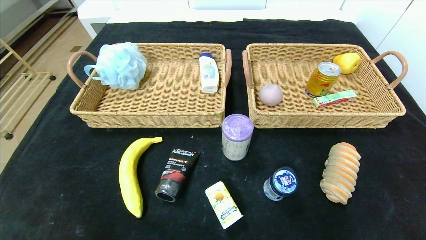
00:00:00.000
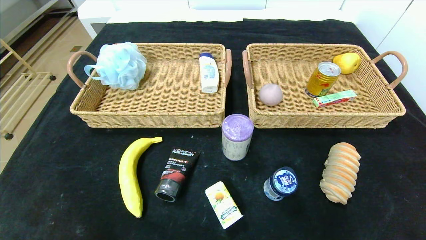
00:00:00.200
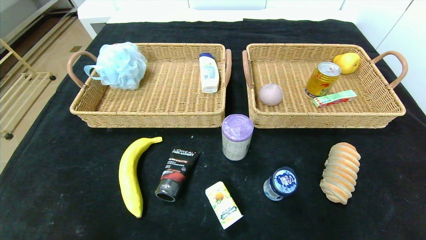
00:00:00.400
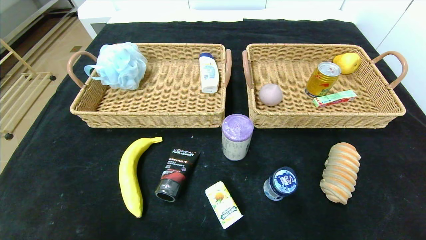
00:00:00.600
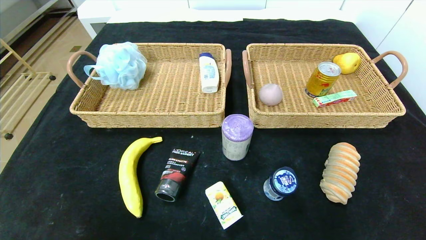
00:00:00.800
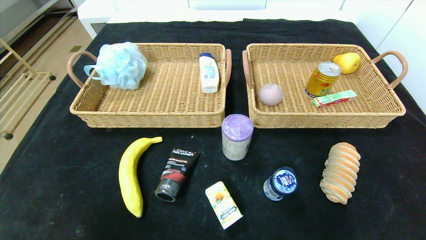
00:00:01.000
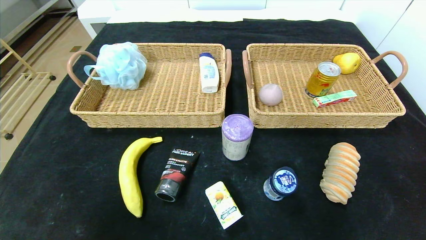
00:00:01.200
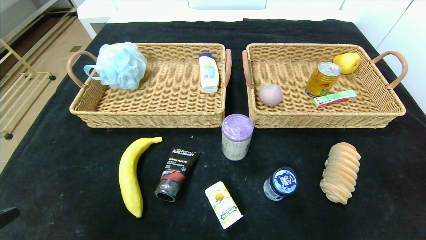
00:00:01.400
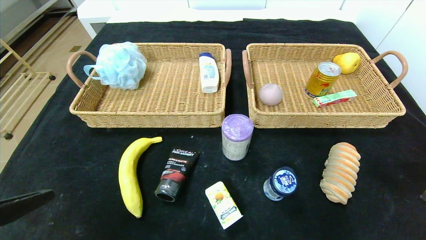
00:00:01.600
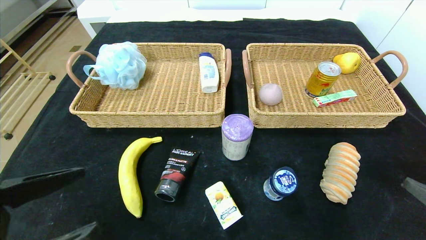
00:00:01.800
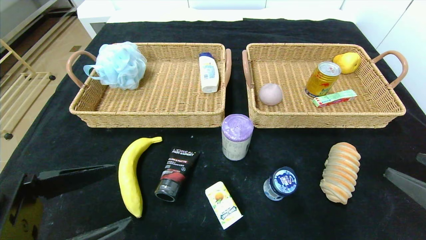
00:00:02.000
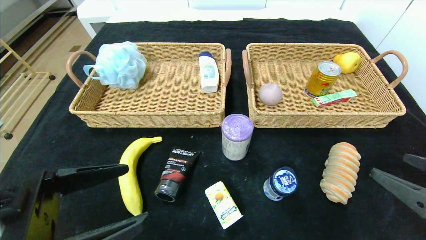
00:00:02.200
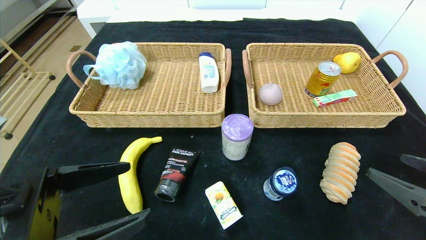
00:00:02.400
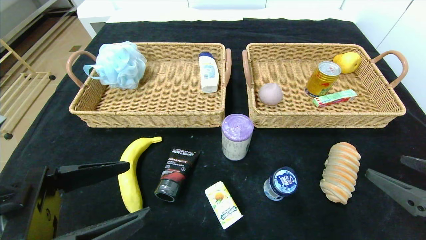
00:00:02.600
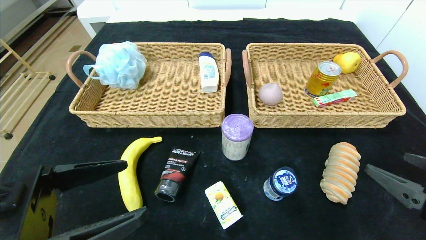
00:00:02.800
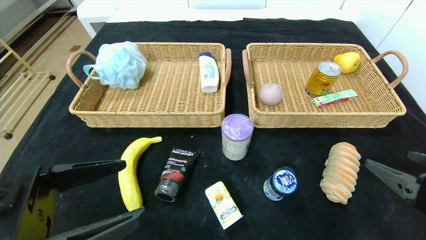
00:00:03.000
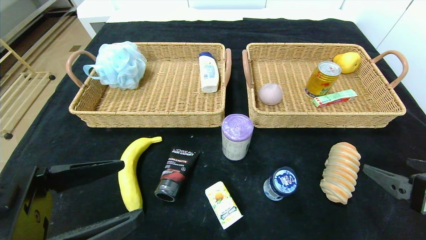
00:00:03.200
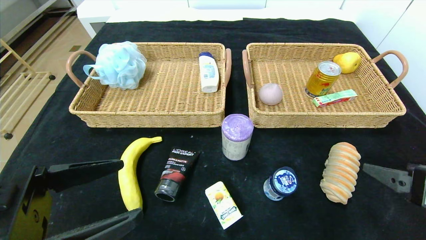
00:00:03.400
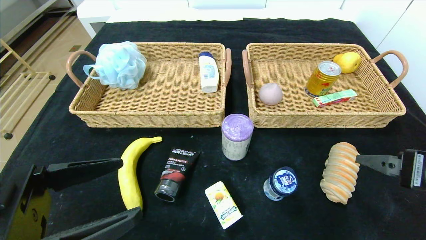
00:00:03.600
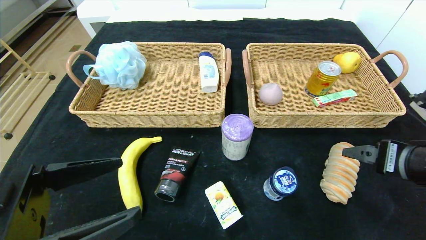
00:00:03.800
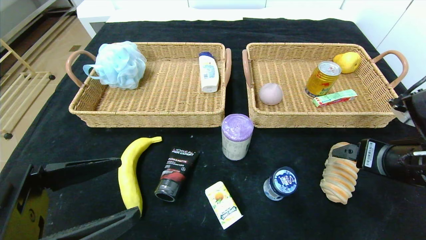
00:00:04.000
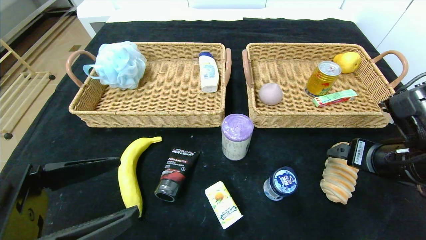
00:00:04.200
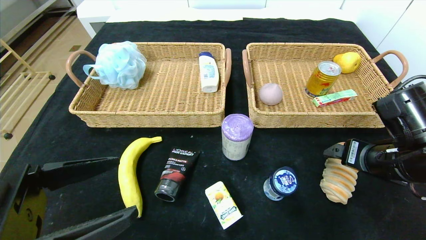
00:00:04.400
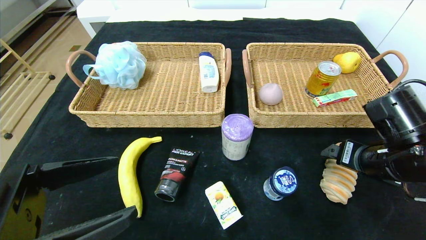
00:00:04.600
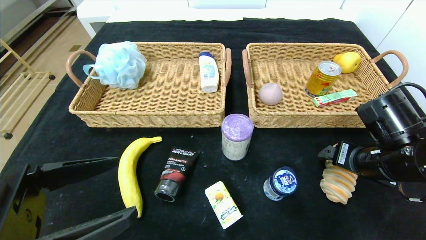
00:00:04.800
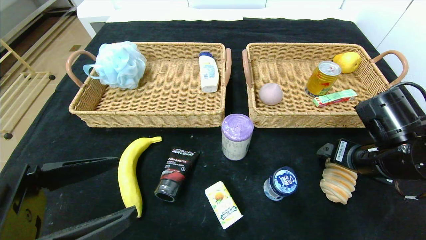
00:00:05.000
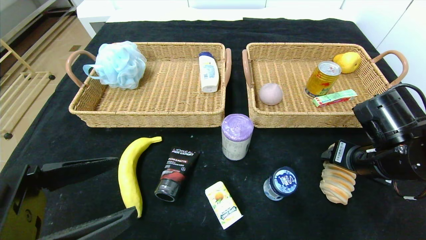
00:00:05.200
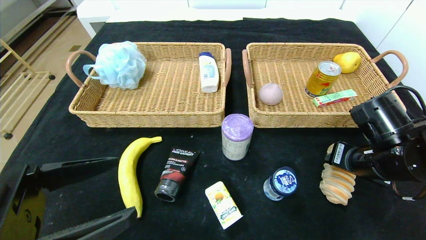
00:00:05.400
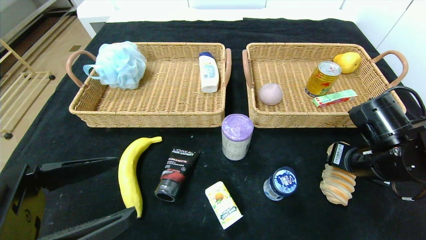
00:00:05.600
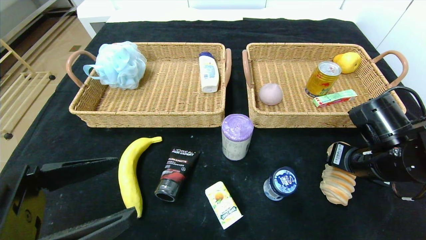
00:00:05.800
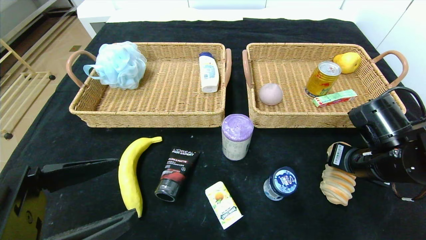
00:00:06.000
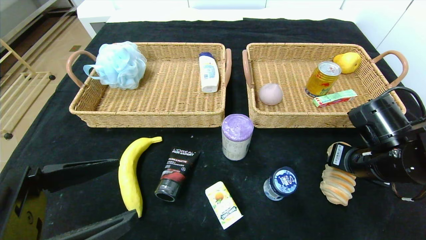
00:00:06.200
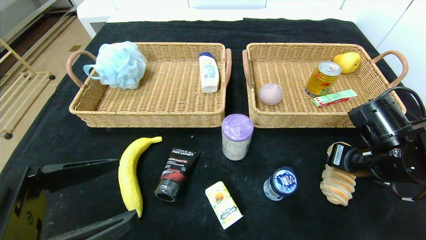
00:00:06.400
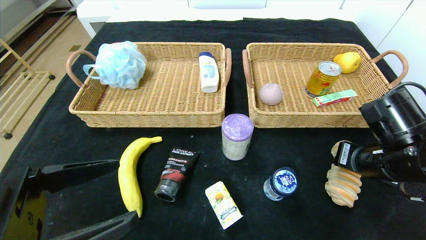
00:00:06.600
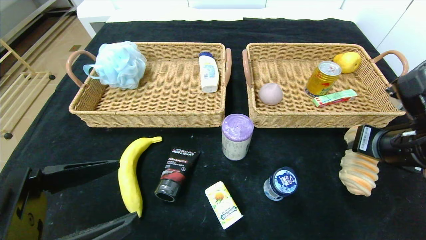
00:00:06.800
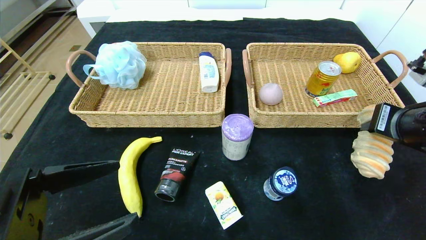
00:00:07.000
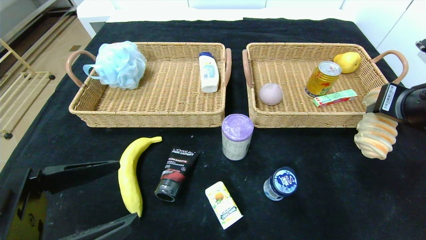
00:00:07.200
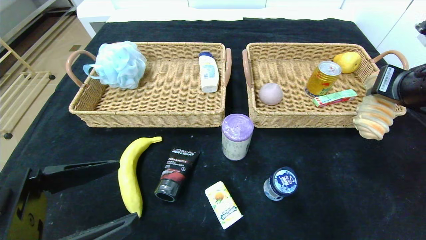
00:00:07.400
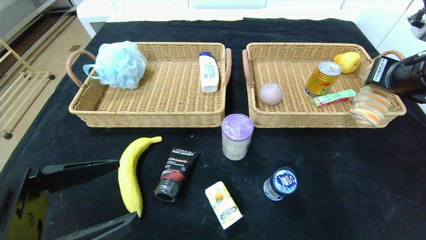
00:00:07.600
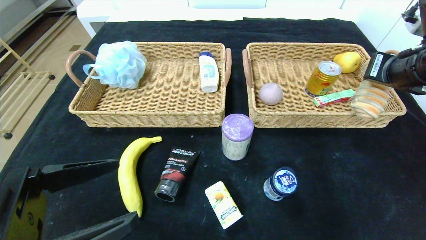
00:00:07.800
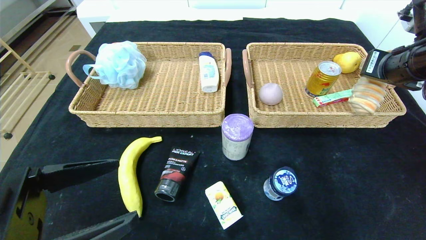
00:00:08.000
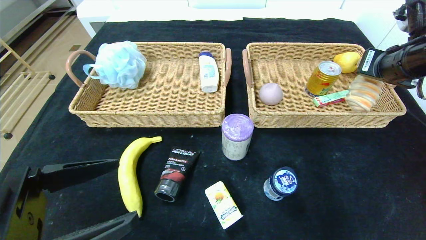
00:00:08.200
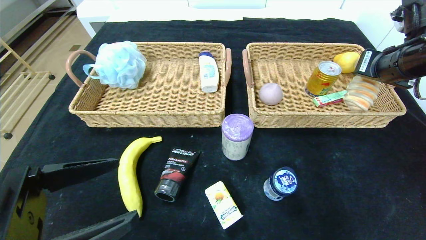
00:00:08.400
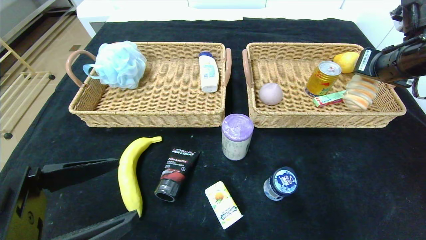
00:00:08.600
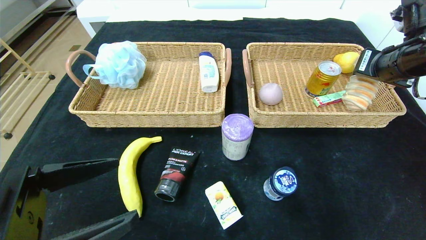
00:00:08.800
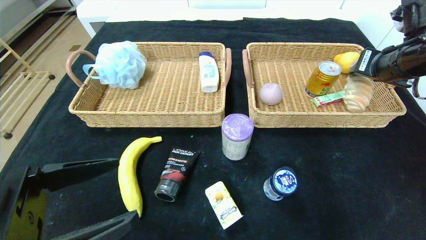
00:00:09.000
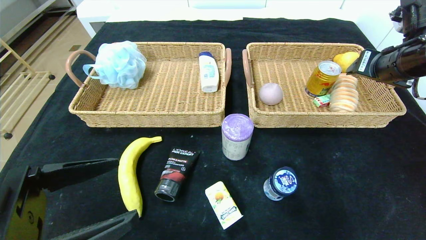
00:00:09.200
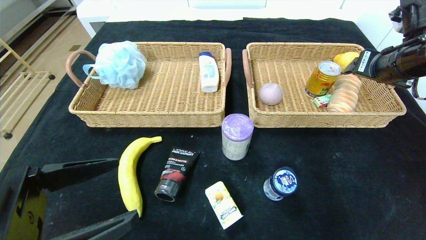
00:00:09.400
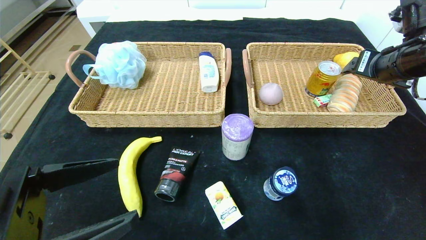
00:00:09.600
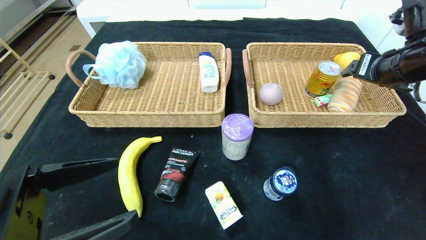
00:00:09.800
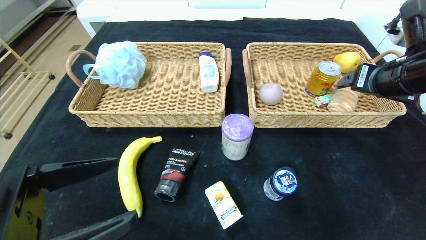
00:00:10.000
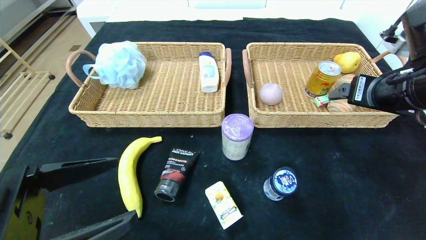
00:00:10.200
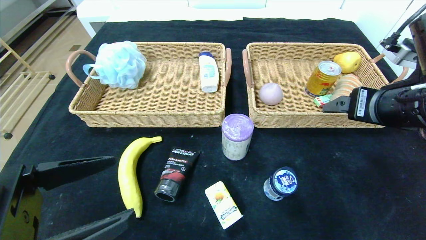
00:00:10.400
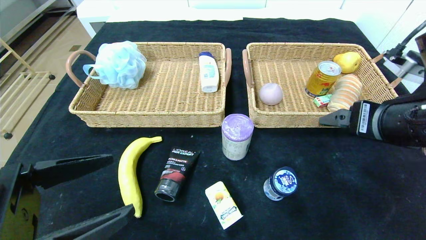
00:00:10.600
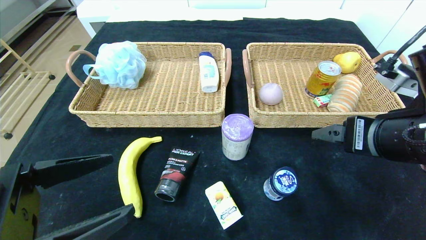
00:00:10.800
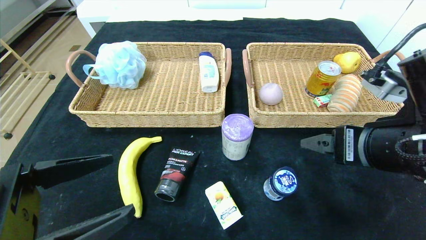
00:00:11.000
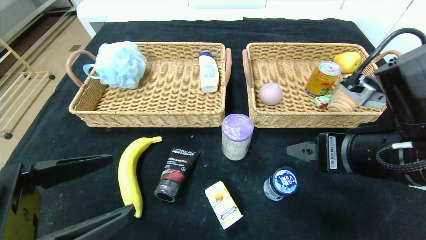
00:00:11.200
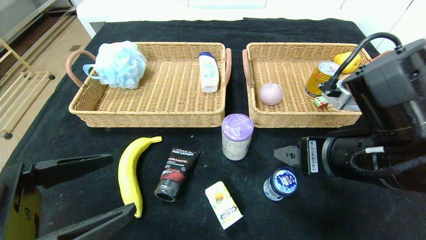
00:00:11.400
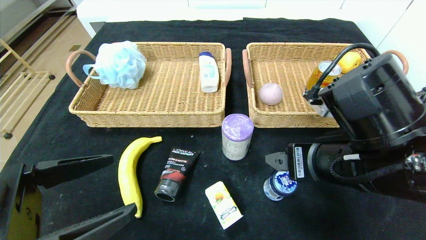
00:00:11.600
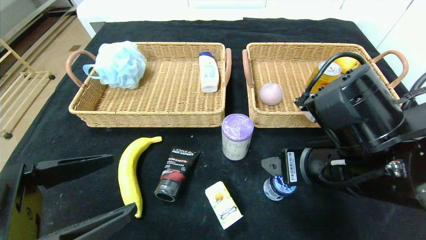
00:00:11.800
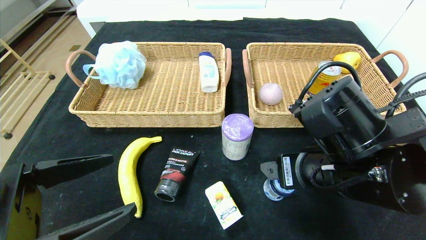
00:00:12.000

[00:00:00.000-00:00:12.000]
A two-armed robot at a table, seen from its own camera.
Step, 00:00:00.000 to 00:00:09.000: Grasp the long bread and put it in the right basket.
00:00:00.000 to 00:00:01.600: The left gripper shifts approximately 15 cm upward and forward.
00:00:01.600 to 00:00:03.000: The grippers both shift forward by about 5 cm.
00:00:03.000 to 00:00:04.400: The right gripper travels forward by about 10 cm.
00:00:04.400 to 00:00:06.000: The right gripper closes.
00:00:06.000 to 00:00:07.600: The right gripper shifts approximately 15 cm upward.
00:00:07.600 to 00:00:09.000: The right gripper travels forward by some 5 cm, and opens.
00:00:09.000 to 00:00:10.400: The right gripper shifts about 10 cm backward and to the left, and opens.
00:00:10.400 to 00:00:12.000: The right gripper shifts roughly 10 cm to the left and downward.

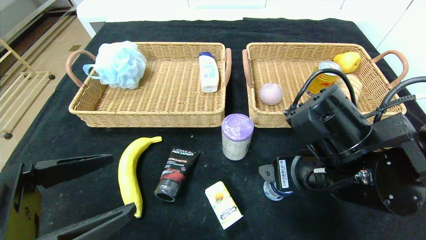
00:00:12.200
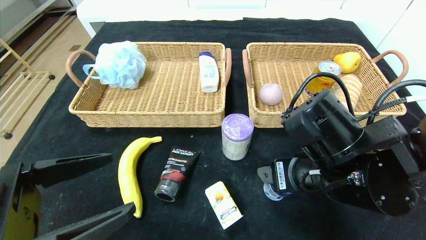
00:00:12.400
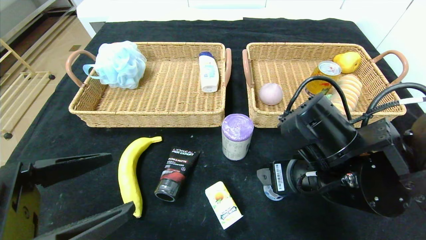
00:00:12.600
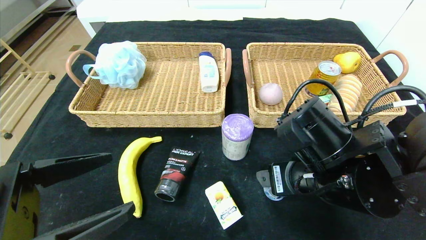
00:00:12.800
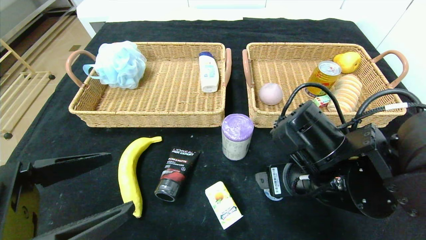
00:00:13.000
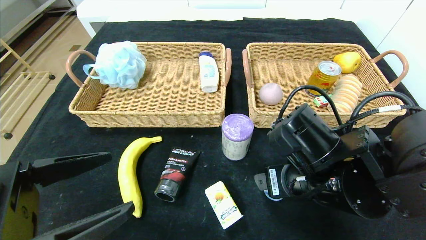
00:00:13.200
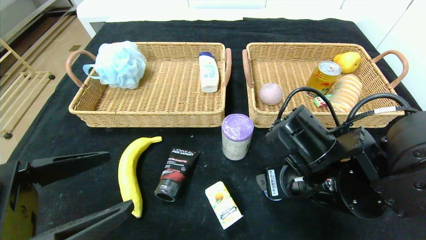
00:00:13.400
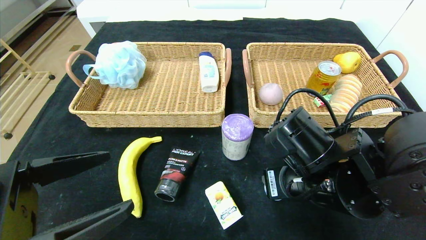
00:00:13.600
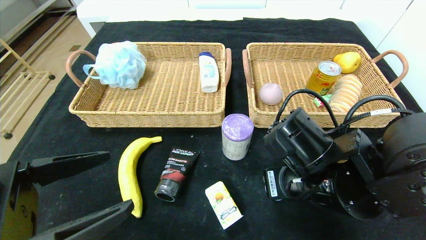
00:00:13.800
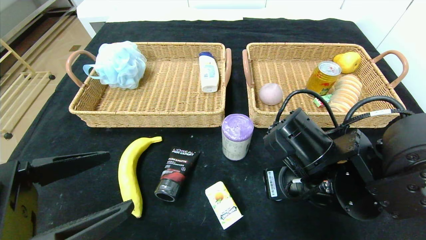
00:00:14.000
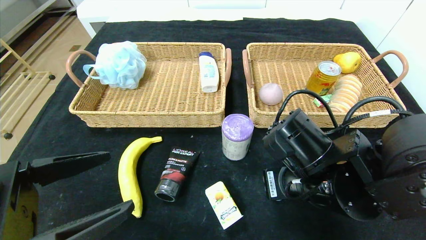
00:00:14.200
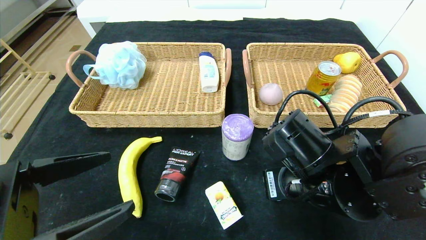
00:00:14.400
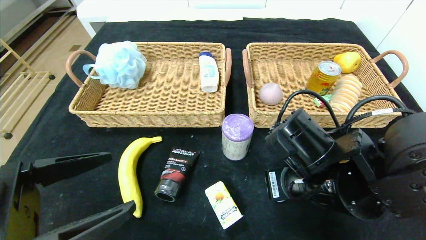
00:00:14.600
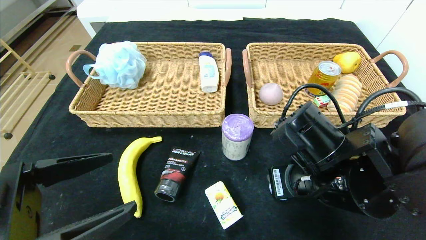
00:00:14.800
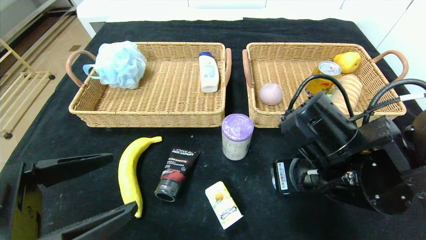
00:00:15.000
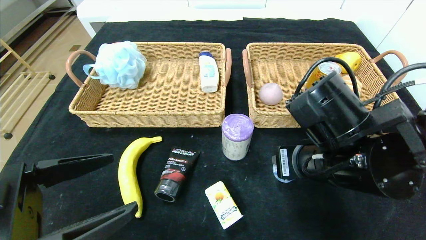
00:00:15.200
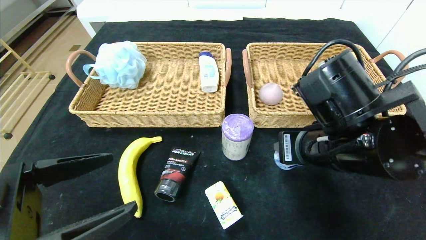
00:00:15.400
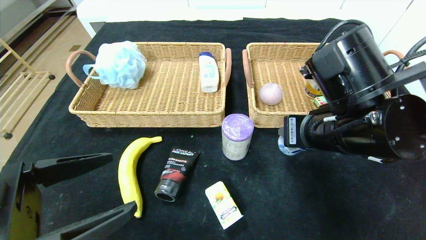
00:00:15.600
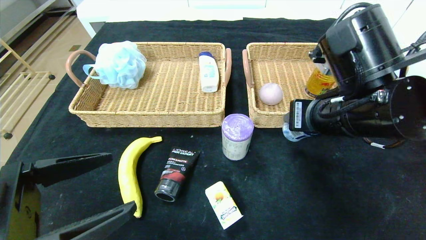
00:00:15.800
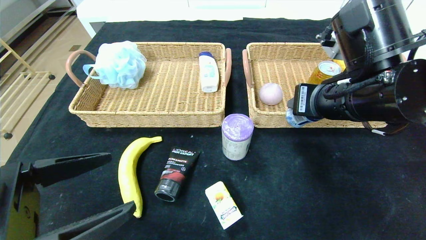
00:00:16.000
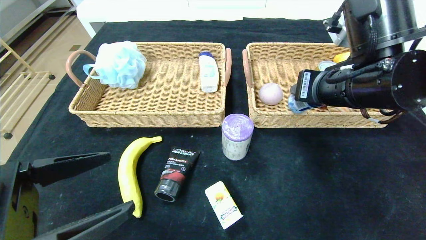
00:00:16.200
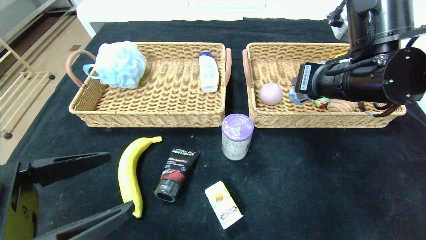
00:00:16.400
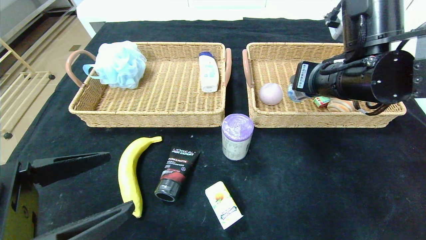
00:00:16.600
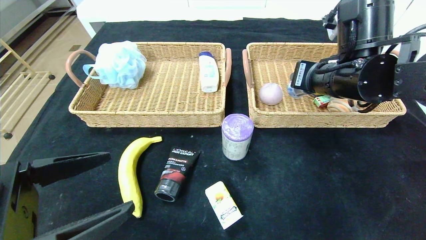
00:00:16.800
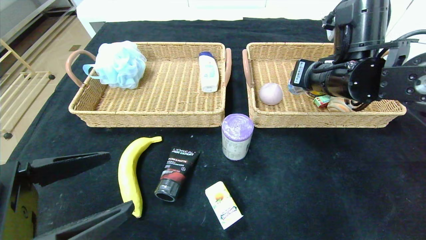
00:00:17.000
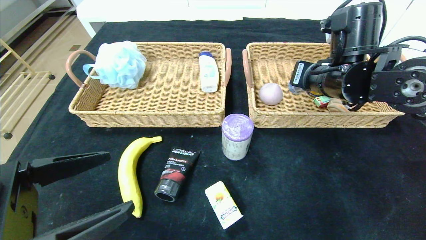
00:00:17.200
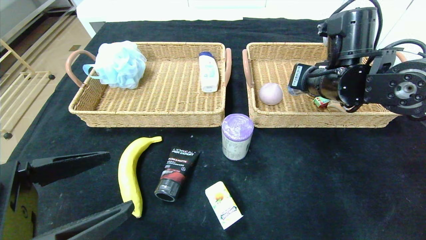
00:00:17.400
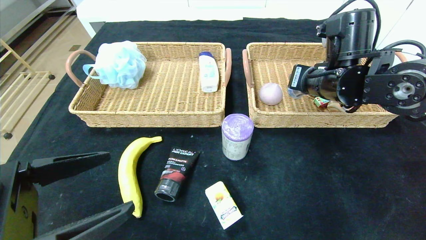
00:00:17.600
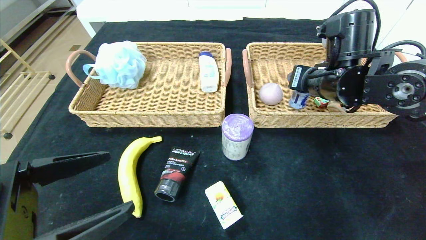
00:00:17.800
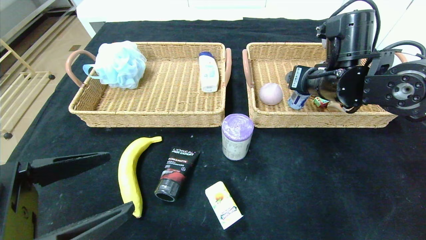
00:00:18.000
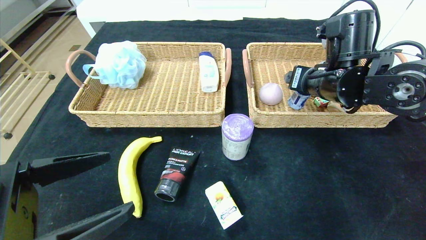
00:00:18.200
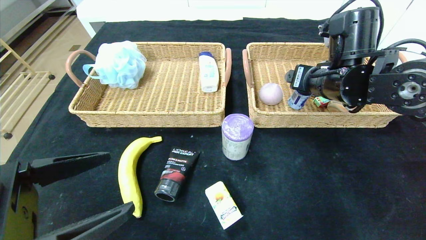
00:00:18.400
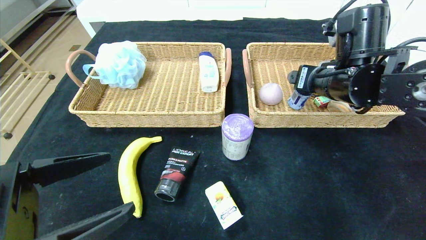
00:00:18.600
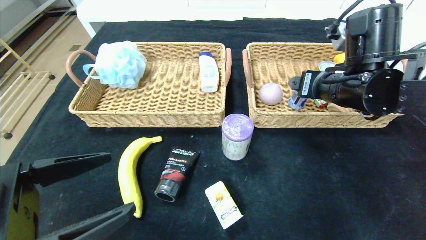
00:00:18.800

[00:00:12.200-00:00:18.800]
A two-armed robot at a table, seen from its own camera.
Step, 00:00:12.200 to 00:00:17.800: Grasp the round chewing gum and put it in the right basket.
00:00:12.200 to 00:00:13.800: The right gripper closes its fingers.
00:00:13.800 to 00:00:15.400: The right gripper shifts roughly 5 cm upward.
00:00:15.400 to 00:00:17.200: The right gripper goes some 10 cm forward.
00:00:17.200 to 00:00:18.800: The right gripper opens its fingers.
